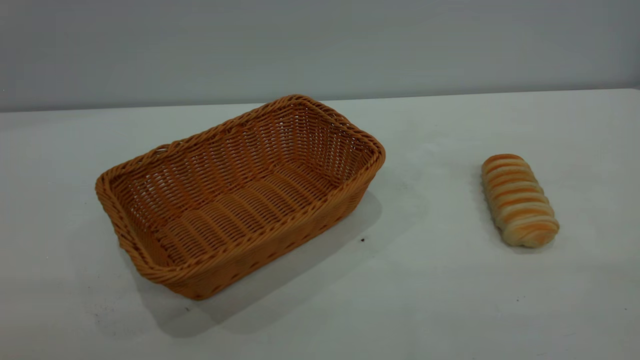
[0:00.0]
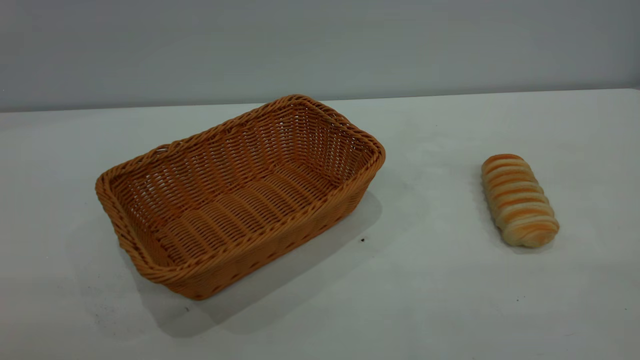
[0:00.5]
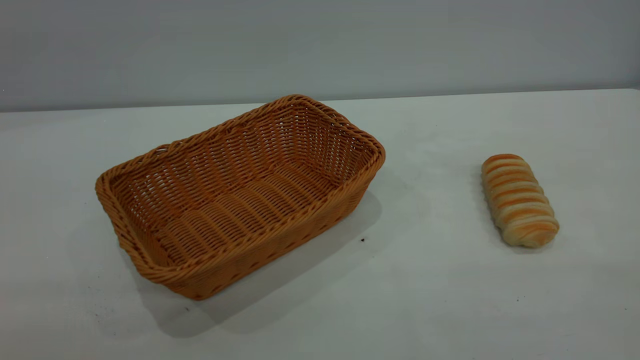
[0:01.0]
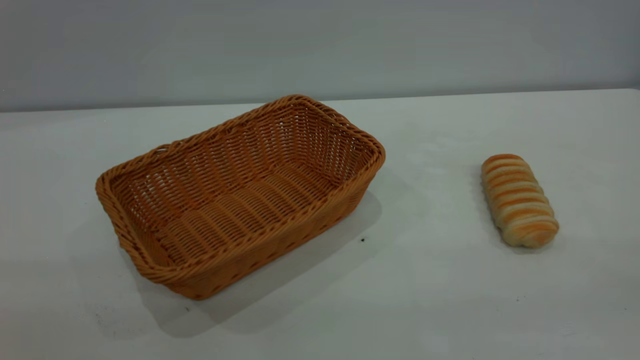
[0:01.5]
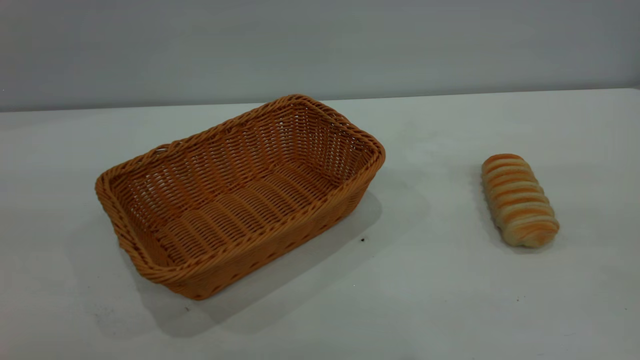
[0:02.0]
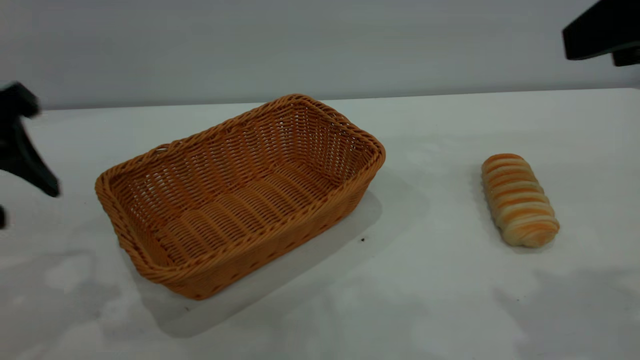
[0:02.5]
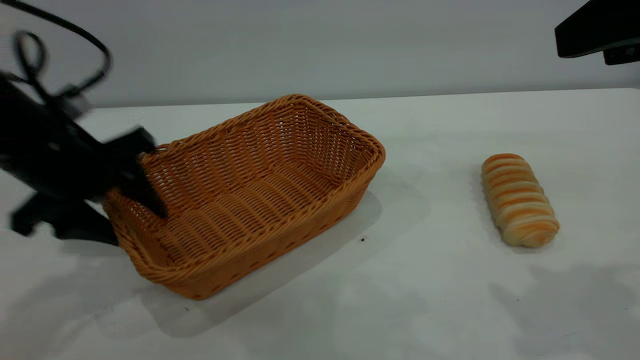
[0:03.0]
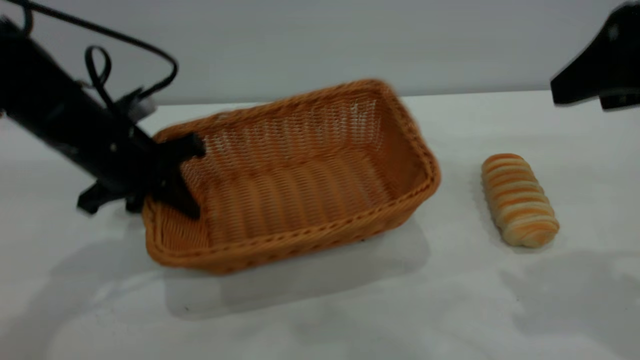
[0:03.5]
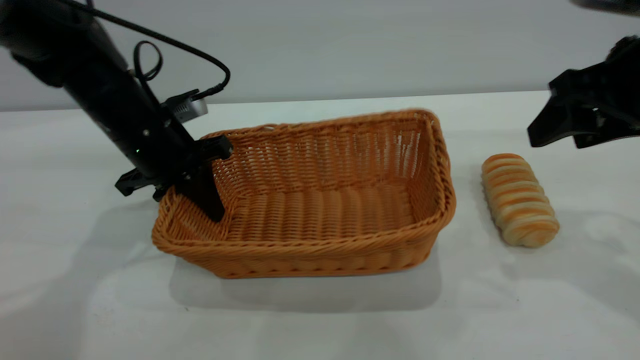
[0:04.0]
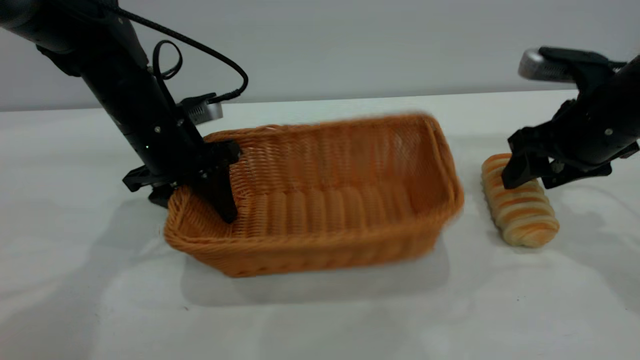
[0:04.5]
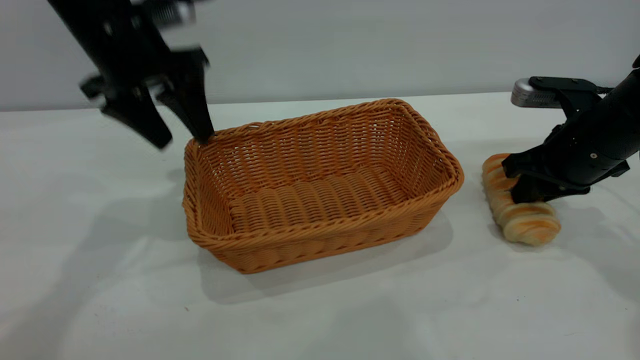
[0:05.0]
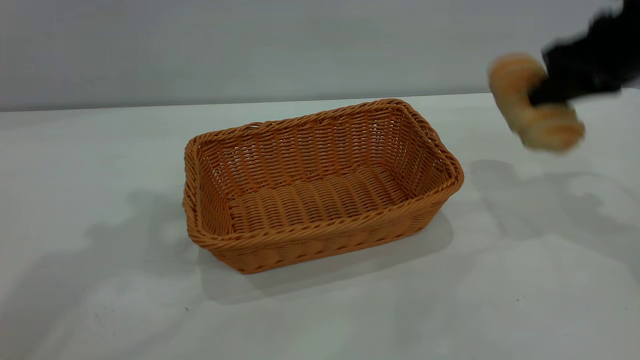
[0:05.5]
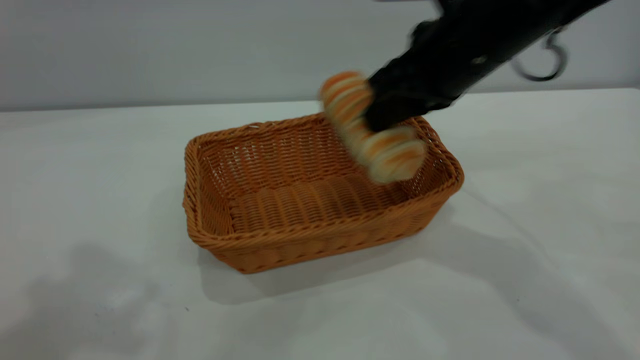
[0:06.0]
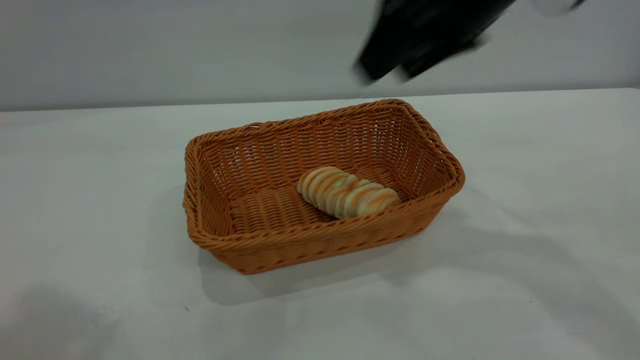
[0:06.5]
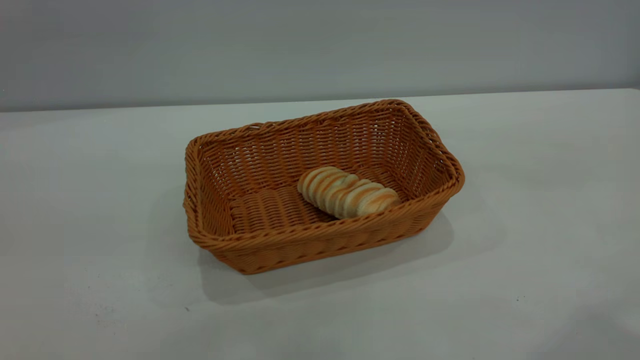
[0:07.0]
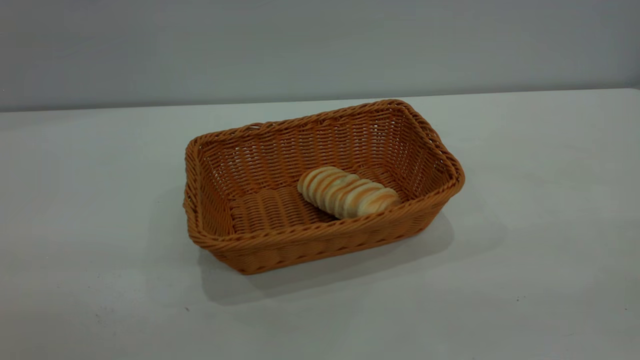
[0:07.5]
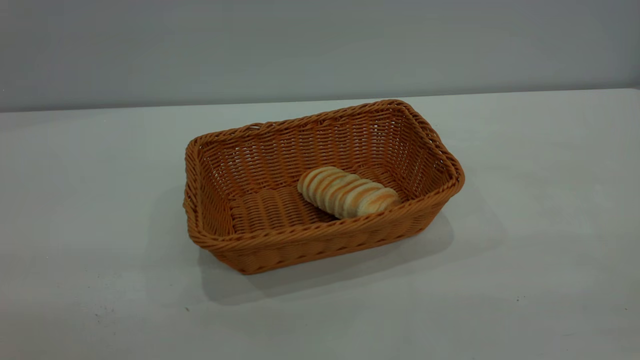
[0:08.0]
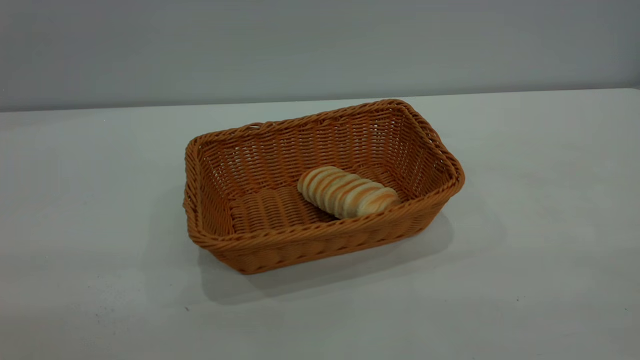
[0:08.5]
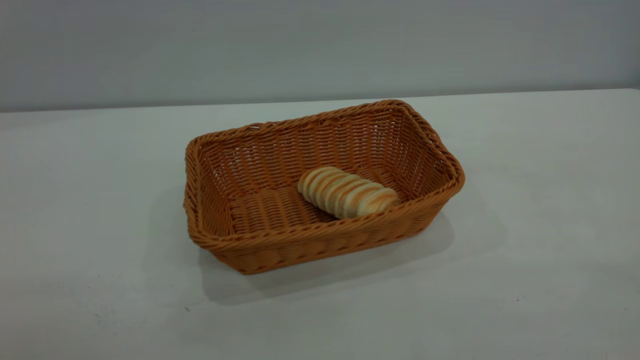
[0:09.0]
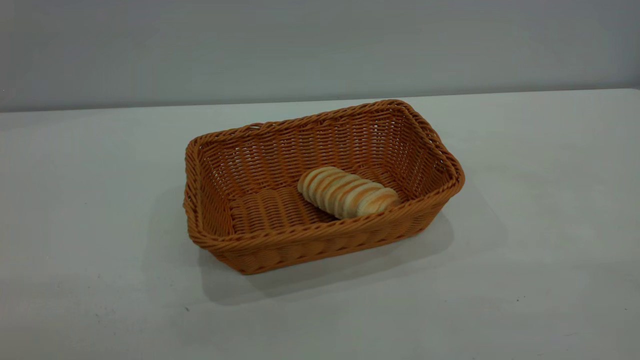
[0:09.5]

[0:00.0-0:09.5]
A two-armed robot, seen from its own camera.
Task of the whole recording: One hand grasps the yellow basket and places it in the middle of the table, while the other hand picks up the long bread and puts it into the yellow basket.
Step, 0:00.0 to 0:05.0: Move the basket to the center of view.
Step, 0:05.5 to 0:06.5: place the bread into the basket.
0:02.0 to 0:04.0: The right gripper travels forward and downward by roughly 25 cm. Meanwhile the left gripper is displaced forward and downward by about 35 cm, and closes its fingers.
0:04.0 to 0:05.5: The right gripper heads forward, covering about 5 cm, travels downward and back again, roughly 10 cm each way, and closes. Meanwhile the left gripper shifts roughly 30 cm upward, and opens up.
0:05.5 to 0:07.5: The two grippers go some 30 cm backward. The right gripper opens.
